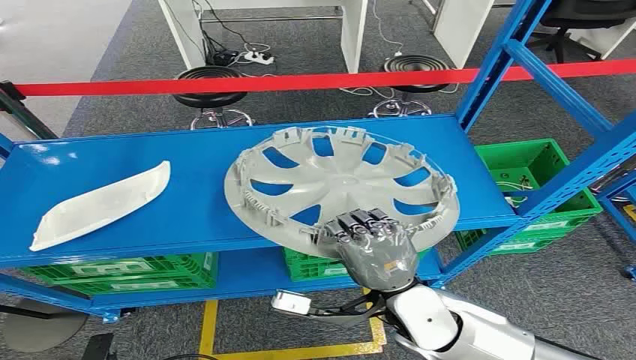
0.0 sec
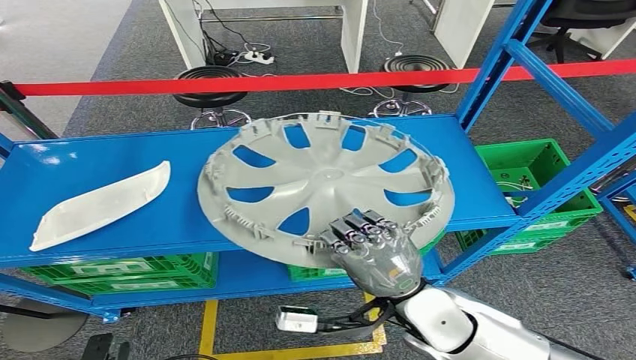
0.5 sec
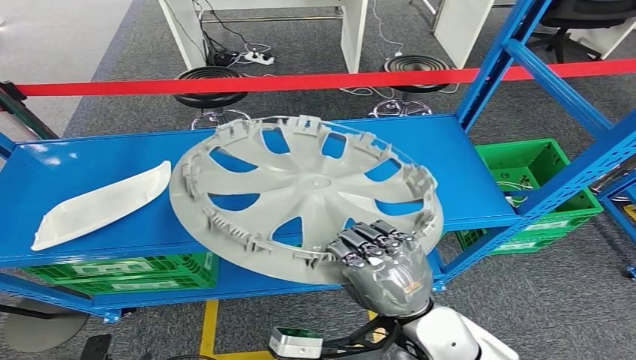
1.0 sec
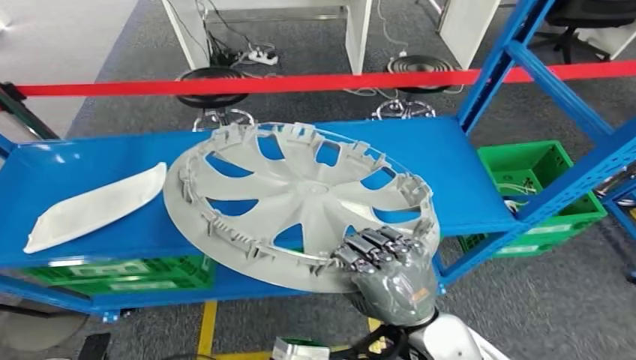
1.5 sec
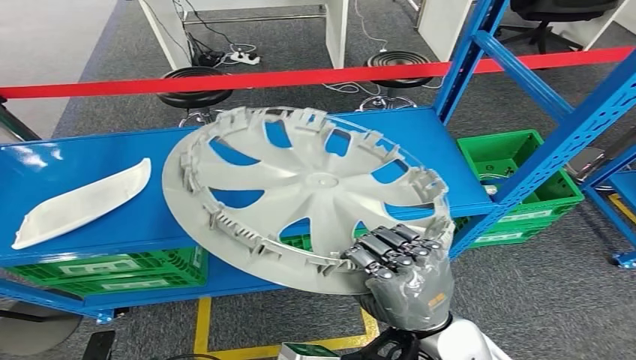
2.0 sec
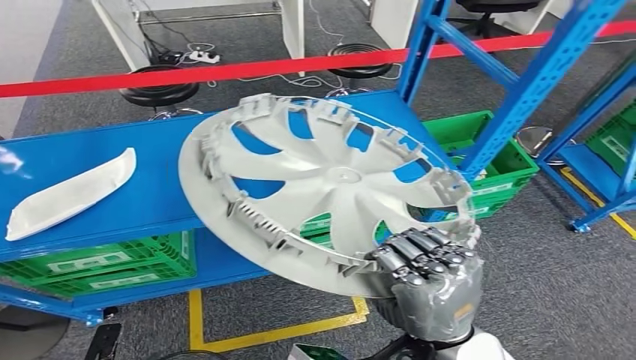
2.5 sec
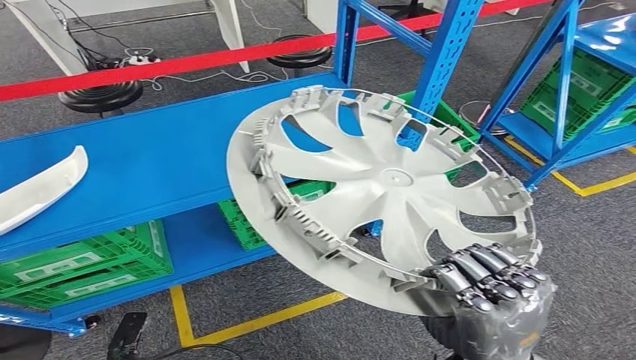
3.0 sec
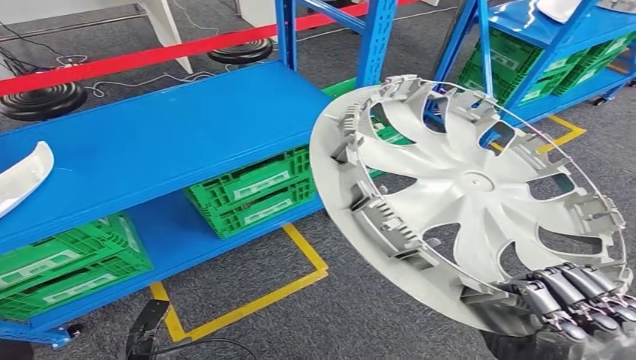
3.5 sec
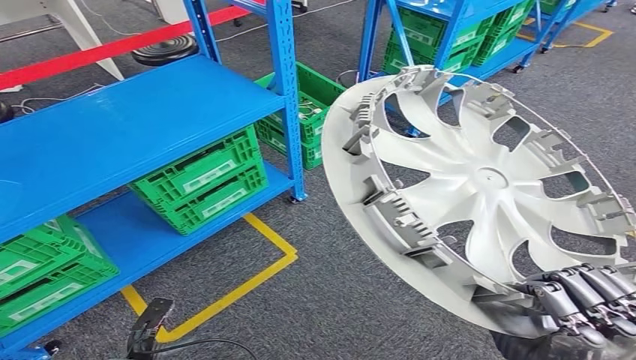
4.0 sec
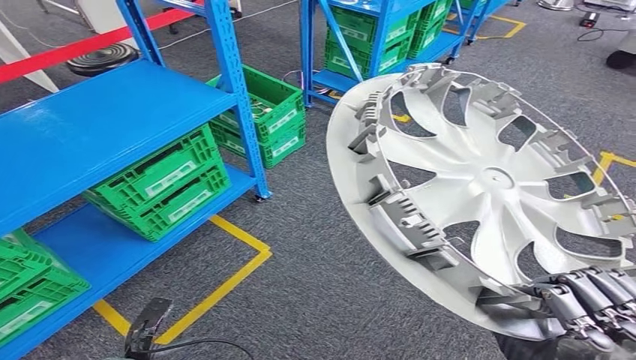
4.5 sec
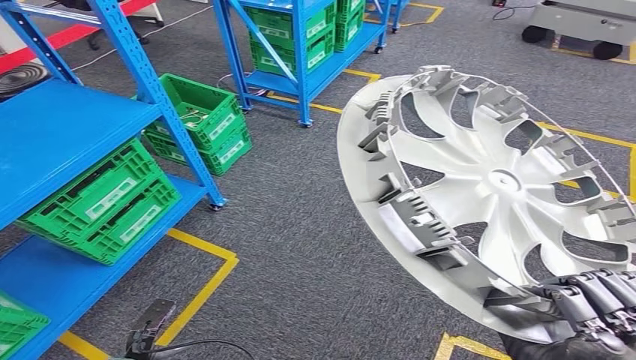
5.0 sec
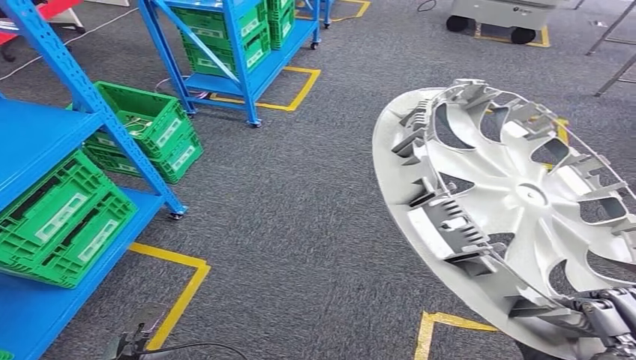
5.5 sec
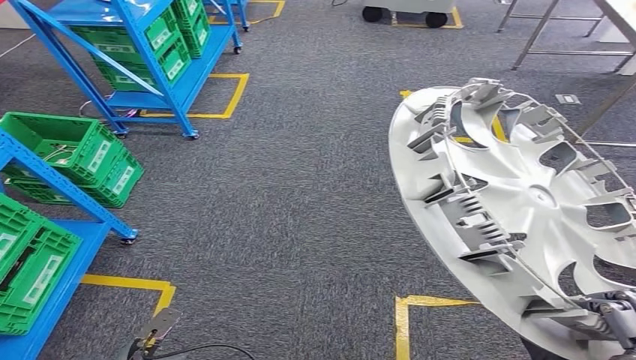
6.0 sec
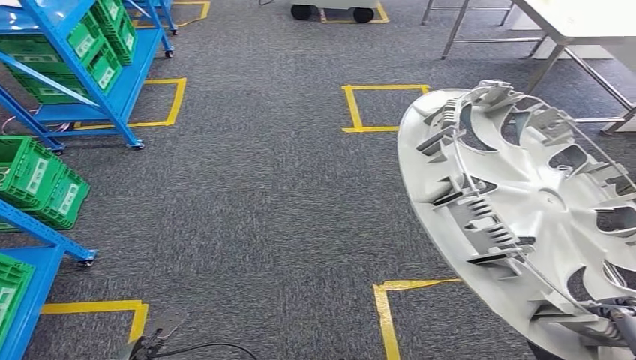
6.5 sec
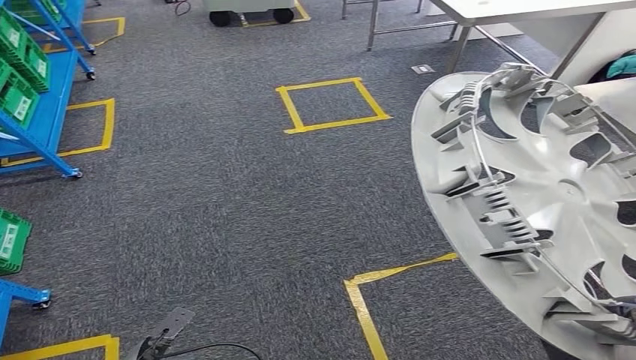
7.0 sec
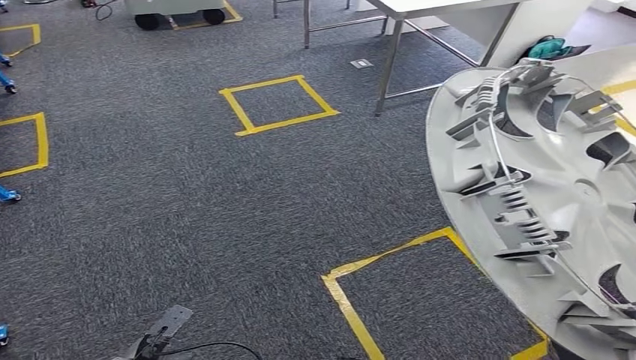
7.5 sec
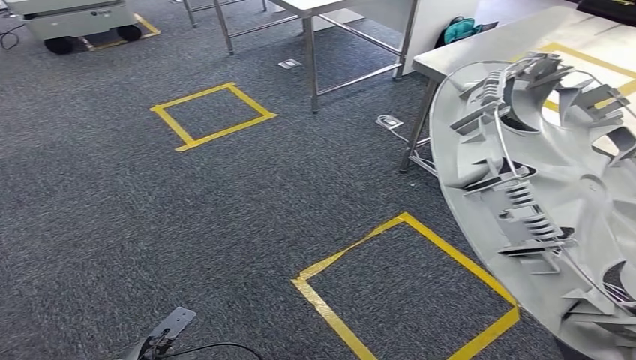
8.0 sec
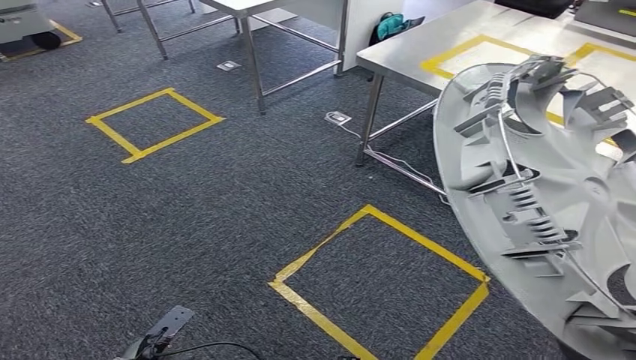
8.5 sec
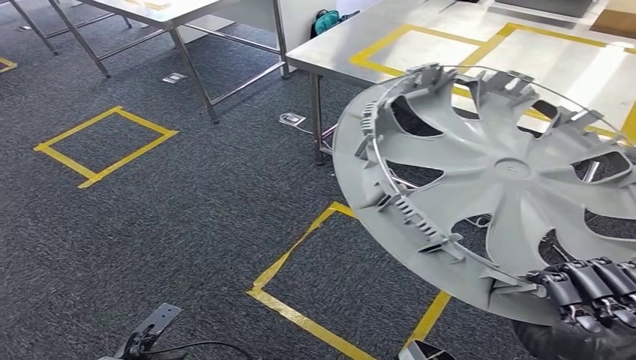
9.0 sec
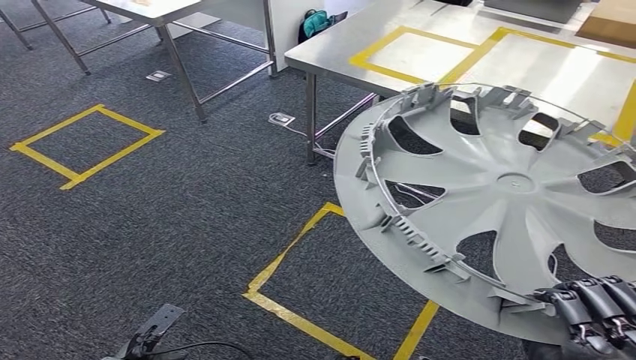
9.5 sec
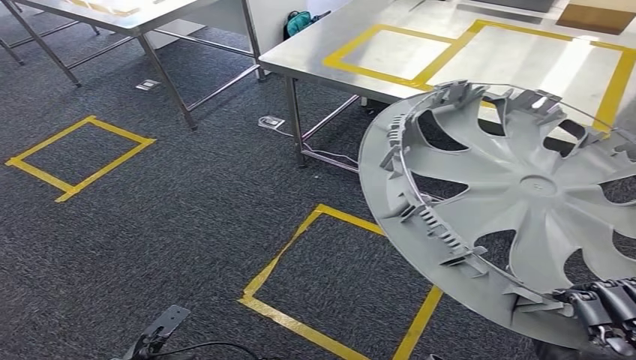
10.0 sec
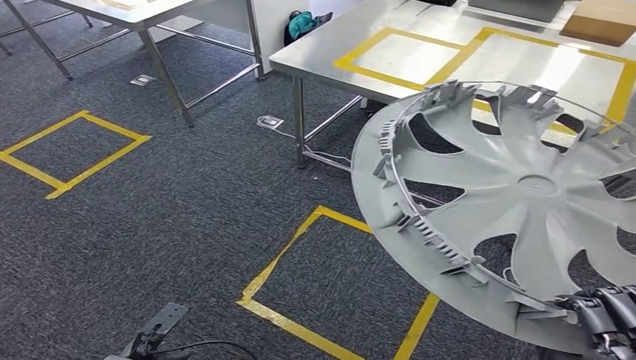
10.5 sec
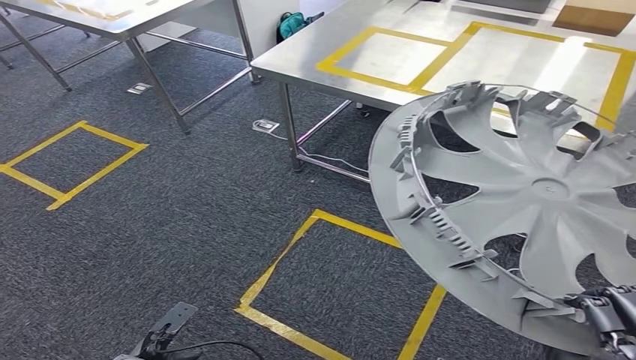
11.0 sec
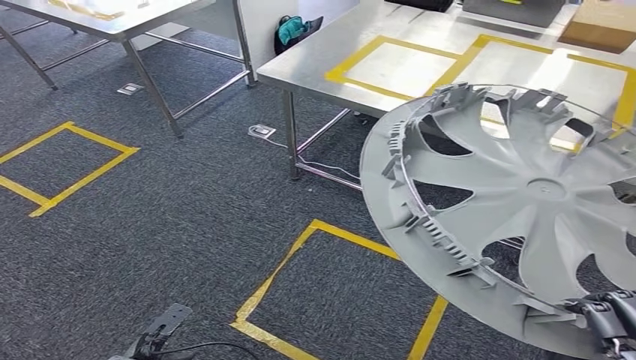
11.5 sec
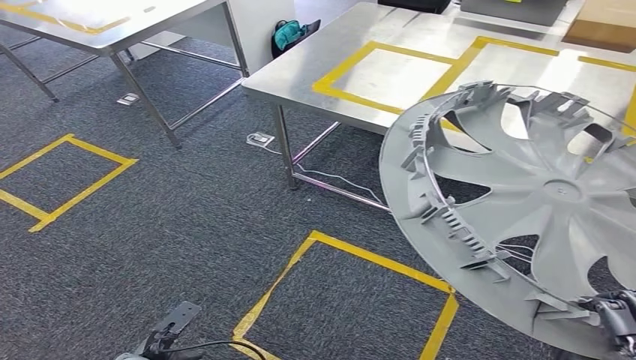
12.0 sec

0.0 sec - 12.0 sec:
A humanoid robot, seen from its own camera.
Step, 0.0 sec - 2.0 sec: Pick up the small parts from the shelf.

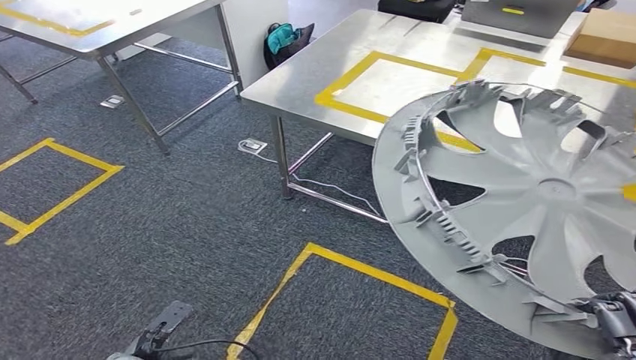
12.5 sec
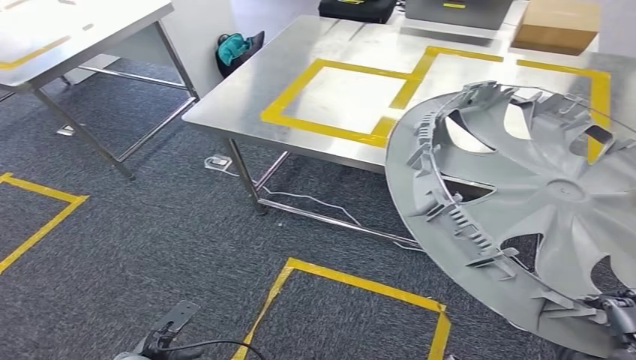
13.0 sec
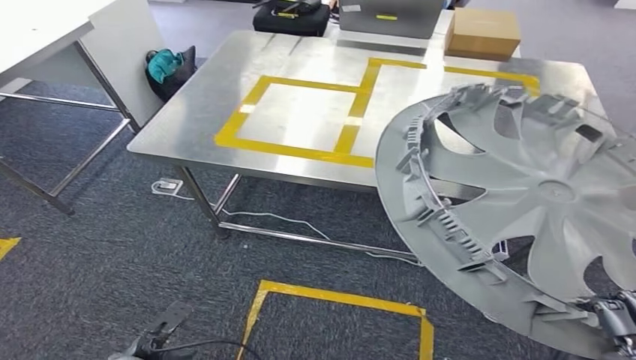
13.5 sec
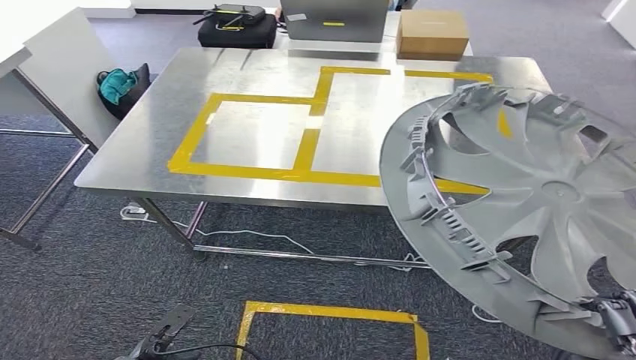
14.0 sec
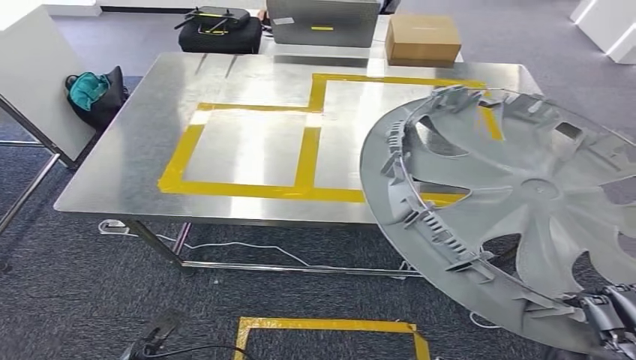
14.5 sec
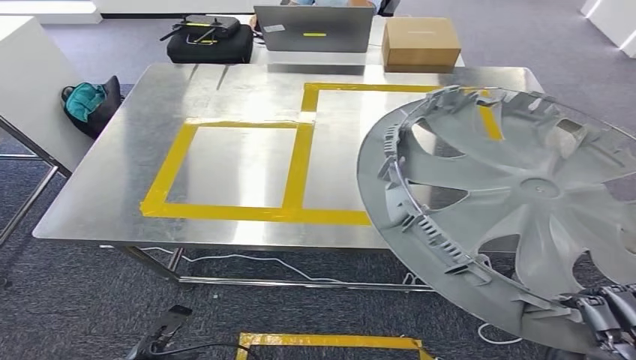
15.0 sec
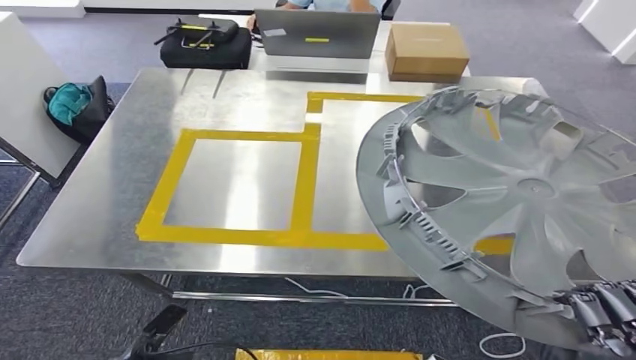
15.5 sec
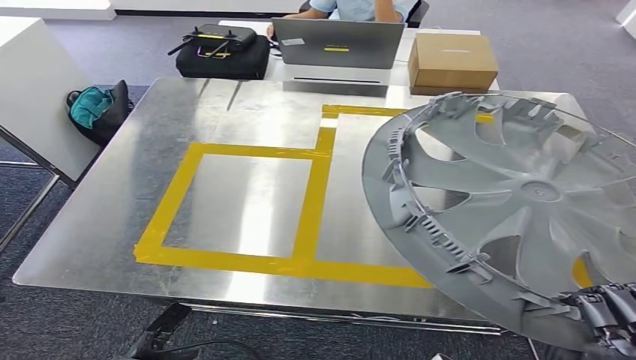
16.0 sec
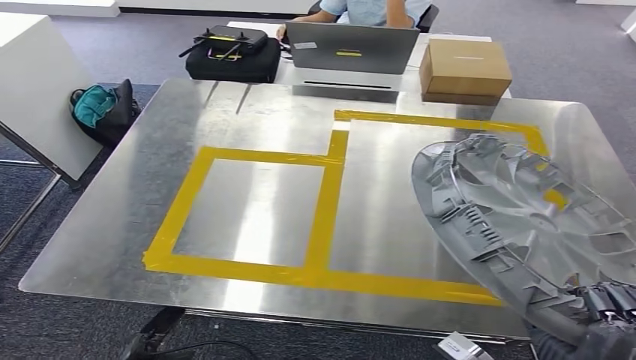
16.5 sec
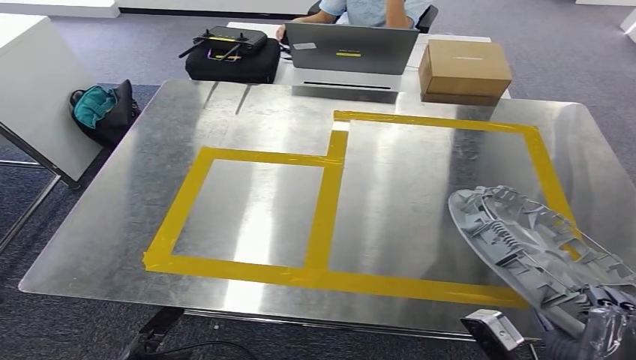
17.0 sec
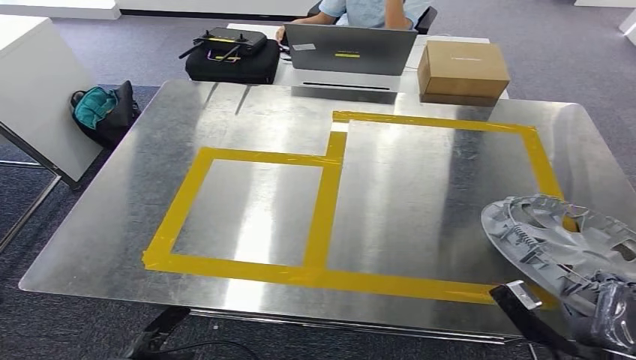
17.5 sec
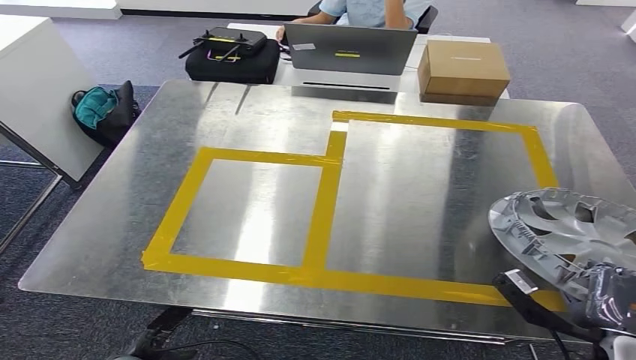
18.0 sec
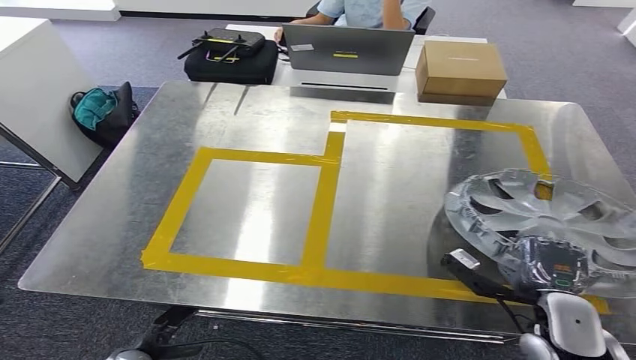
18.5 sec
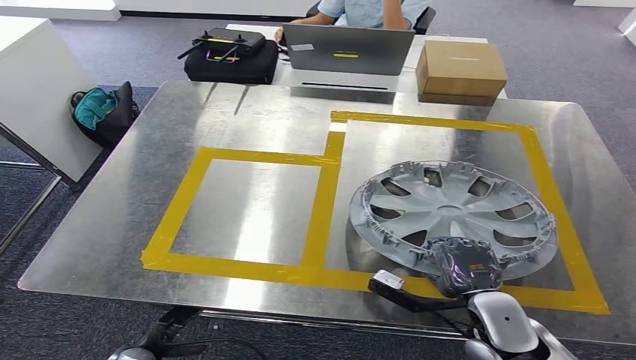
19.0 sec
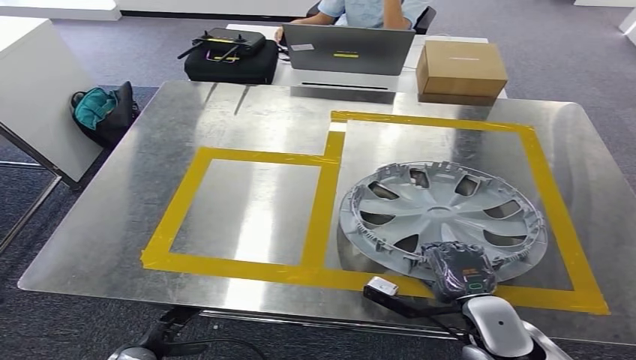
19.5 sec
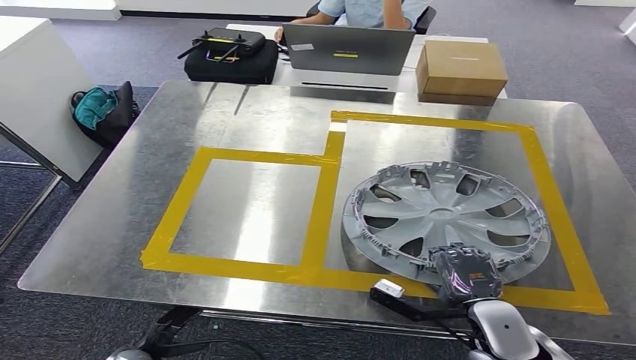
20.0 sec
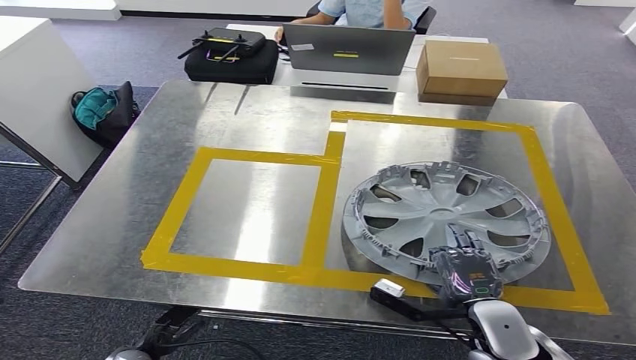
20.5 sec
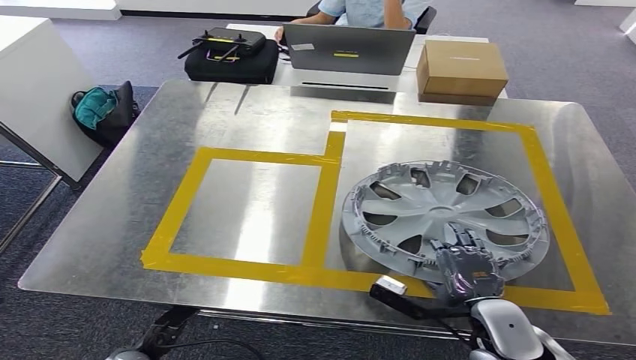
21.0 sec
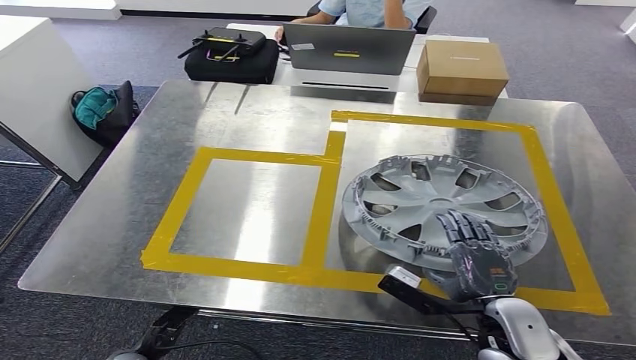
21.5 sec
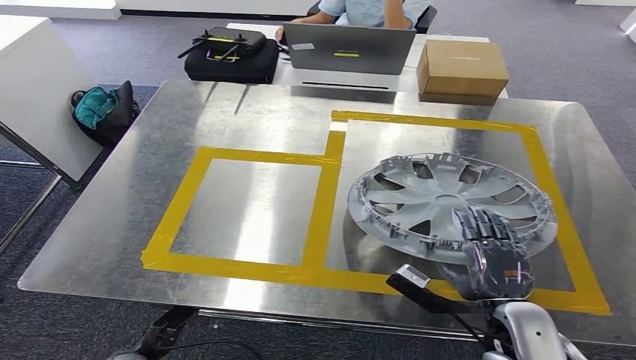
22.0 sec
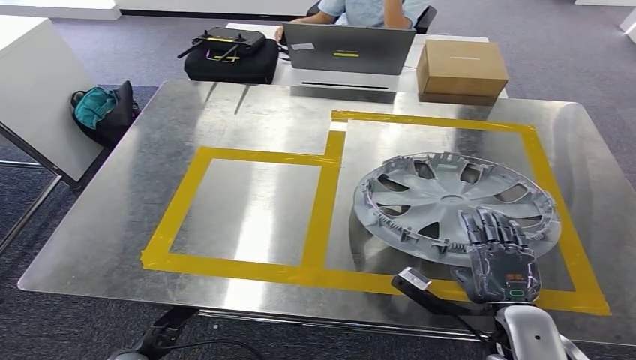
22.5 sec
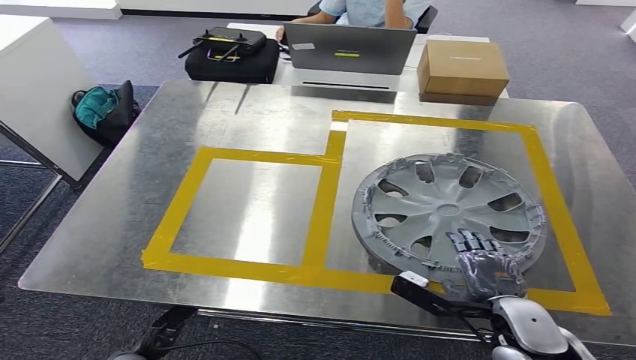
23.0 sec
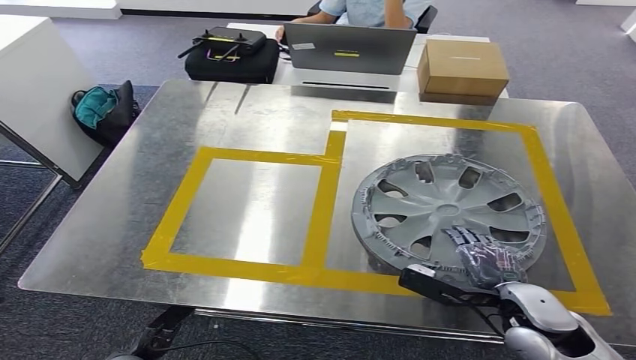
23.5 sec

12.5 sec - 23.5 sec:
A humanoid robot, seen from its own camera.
18.0 sec - 20.0 sec: The right hand heads to the left and forward, covering roughly 15 cm.
20.0 sec - 21.5 sec: The hands move only a little.
21.5 sec - 23.5 sec: The right hand ends up approximately 5 cm from where it was.
